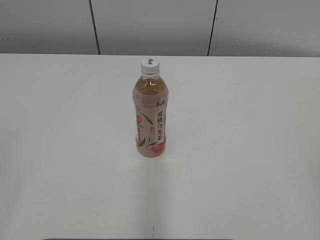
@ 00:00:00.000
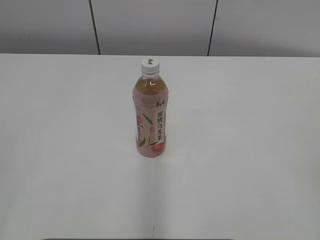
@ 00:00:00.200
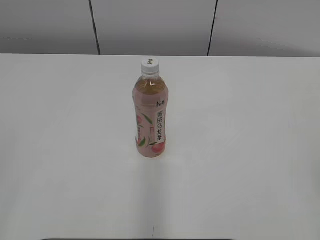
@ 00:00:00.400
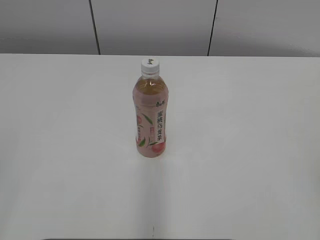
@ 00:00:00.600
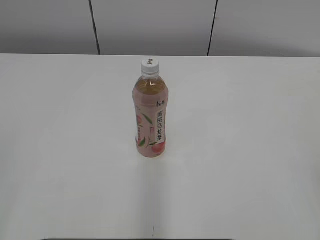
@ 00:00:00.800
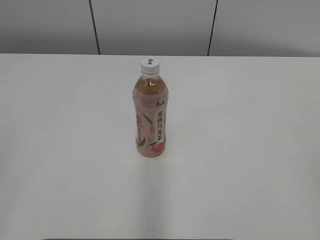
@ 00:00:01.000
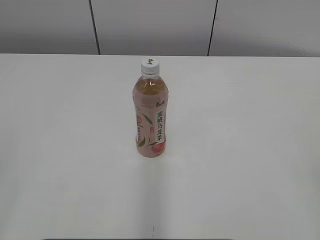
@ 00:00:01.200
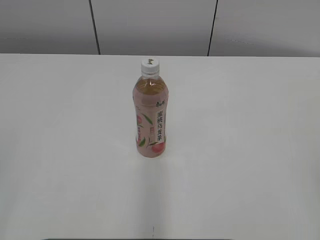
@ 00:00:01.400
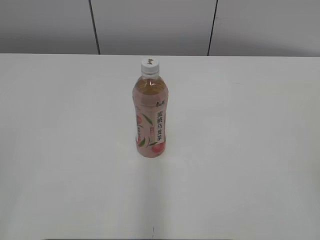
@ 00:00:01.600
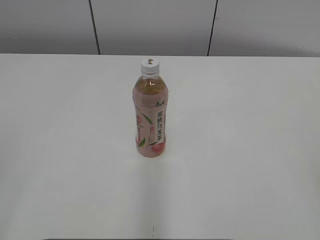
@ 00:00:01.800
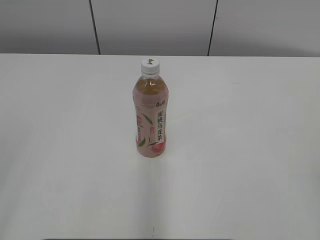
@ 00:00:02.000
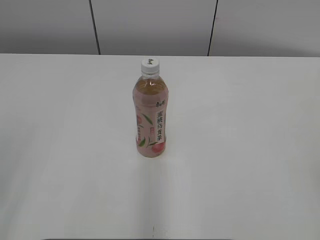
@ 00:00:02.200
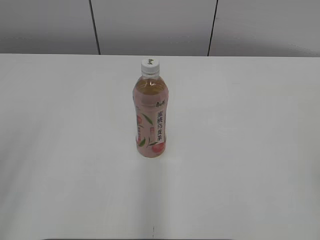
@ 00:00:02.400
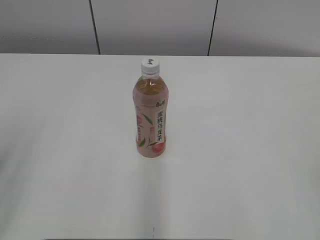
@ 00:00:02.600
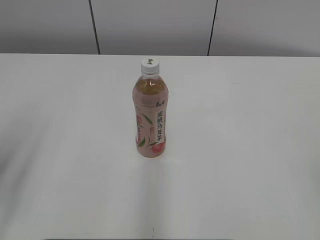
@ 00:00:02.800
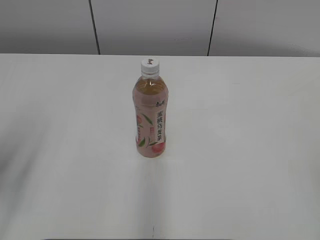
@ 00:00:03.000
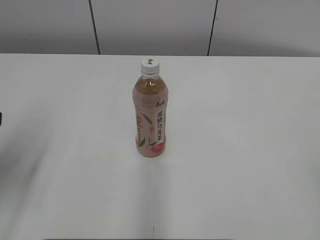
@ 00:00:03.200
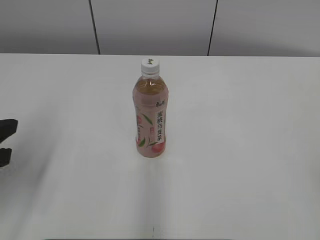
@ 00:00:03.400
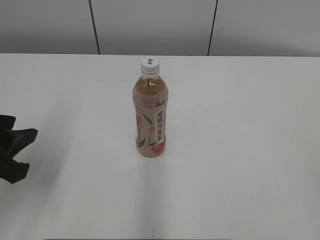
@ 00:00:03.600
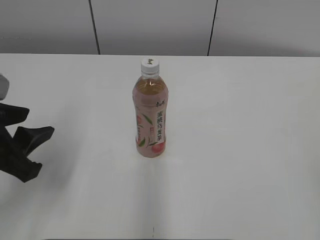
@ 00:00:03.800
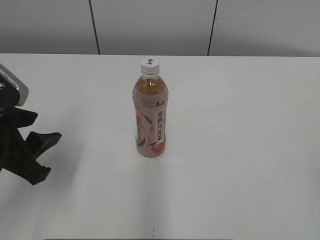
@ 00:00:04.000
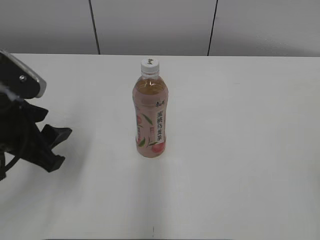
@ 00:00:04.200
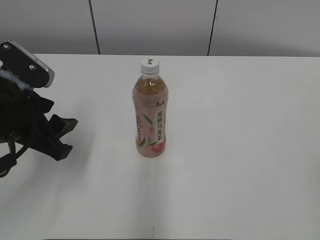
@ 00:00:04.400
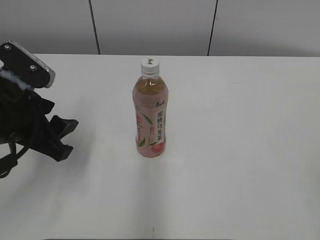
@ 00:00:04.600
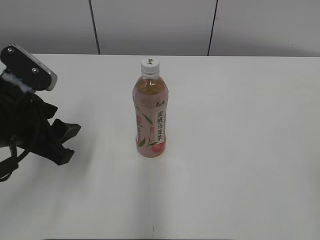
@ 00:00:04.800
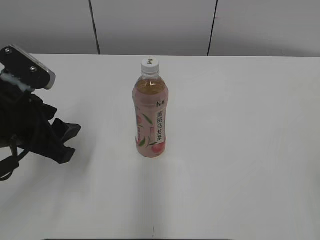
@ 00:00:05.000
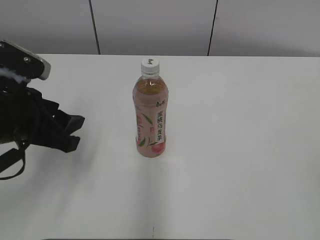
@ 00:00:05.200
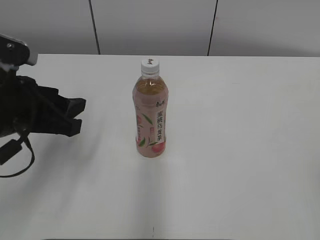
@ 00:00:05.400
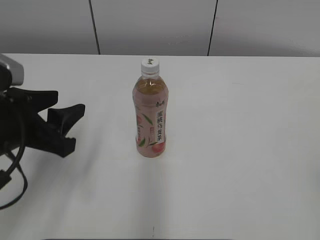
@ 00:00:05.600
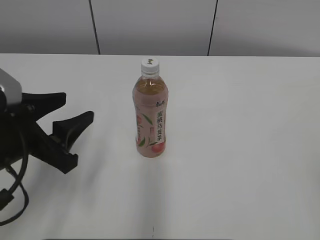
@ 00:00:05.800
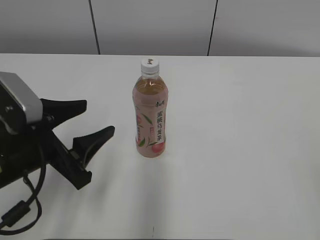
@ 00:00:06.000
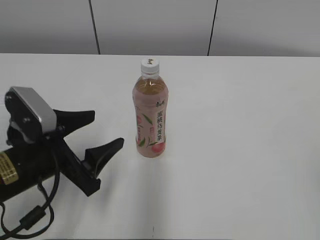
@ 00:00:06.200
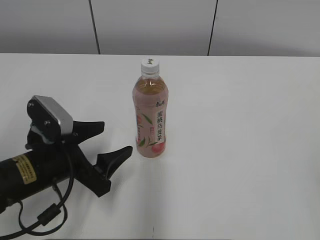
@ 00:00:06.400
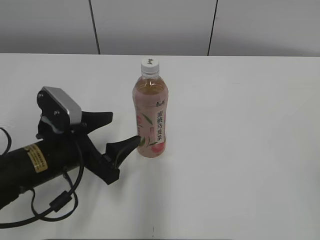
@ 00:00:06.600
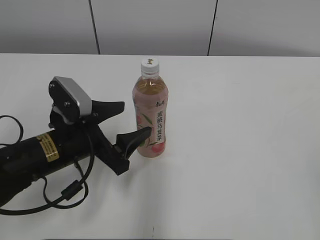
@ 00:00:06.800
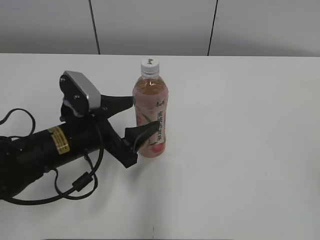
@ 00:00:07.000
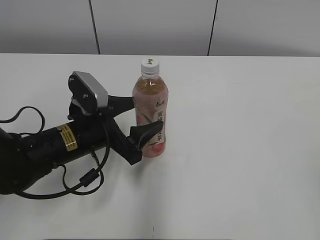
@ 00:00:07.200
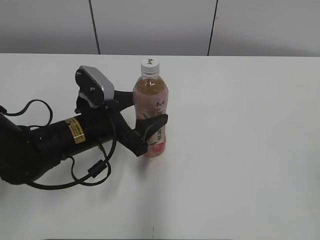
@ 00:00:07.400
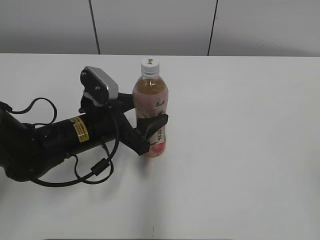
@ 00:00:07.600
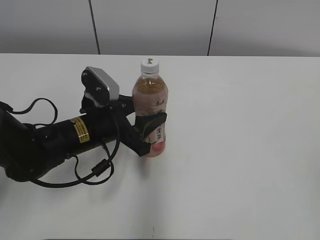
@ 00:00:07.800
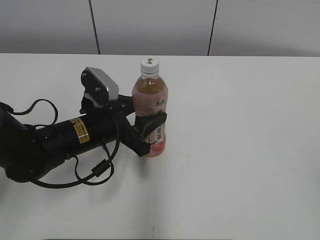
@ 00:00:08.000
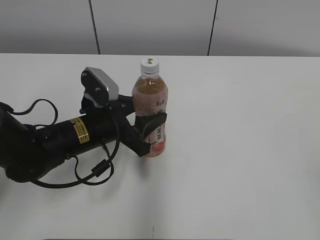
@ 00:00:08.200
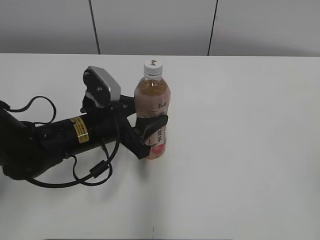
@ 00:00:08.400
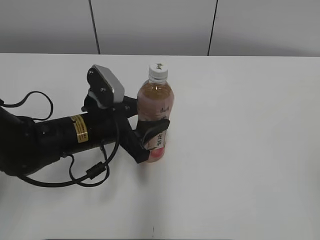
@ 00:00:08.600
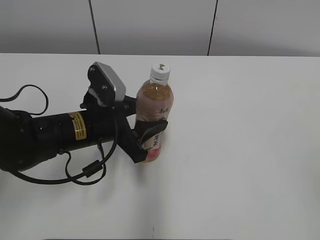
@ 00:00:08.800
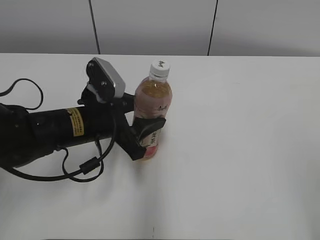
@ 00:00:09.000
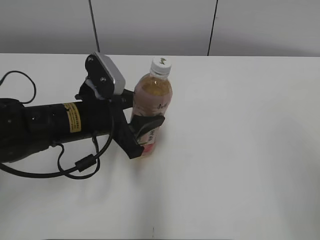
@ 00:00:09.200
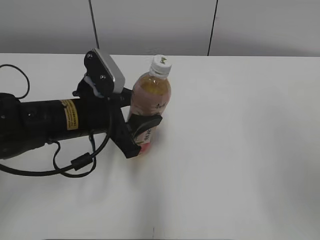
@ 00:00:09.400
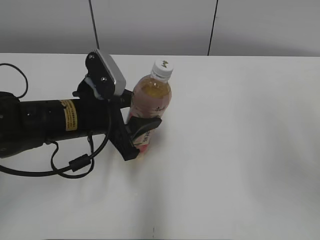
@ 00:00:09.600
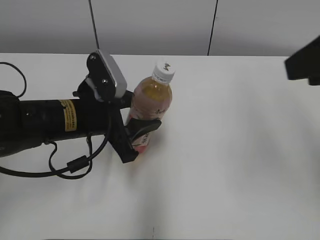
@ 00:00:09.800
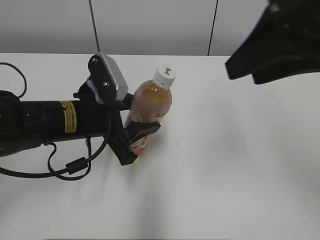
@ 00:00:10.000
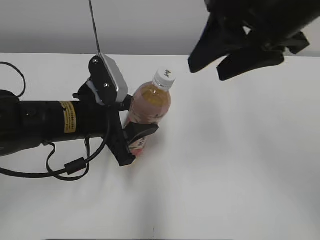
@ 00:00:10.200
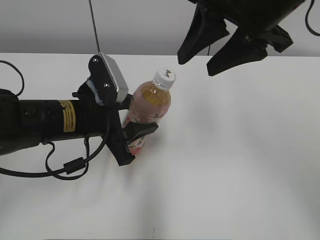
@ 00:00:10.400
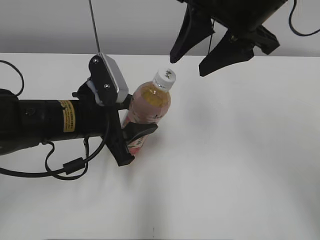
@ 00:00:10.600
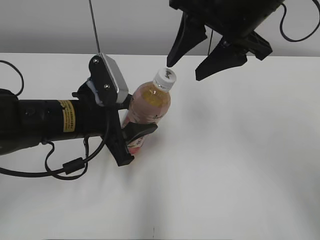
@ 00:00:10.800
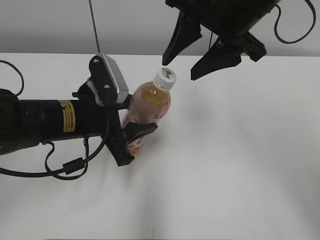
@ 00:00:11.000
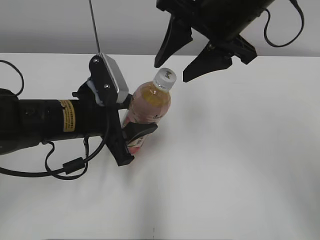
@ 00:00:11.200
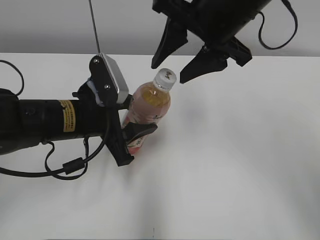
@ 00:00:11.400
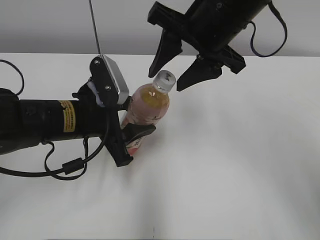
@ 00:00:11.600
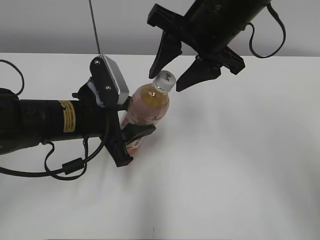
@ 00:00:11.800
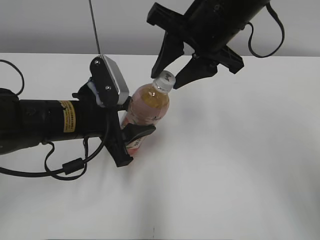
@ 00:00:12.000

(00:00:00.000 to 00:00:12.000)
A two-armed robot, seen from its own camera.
Step, 00:00:00.000 - 00:00:08.000: Grab the Peach Oolong Tea with the left hand.
00:00:01.600 - 00:00:03.000: The left gripper goes some 15 cm forward.
00:00:03.000 - 00:00:04.400: The left gripper heads to the right and forward, covering approximately 10 cm.
00:00:06.000 - 00:00:07.600: The left gripper moves forward, to the right and downward, roughly 15 cm.
00:00:07.600 - 00:00:09.000: The left gripper closes up.
00:00:09.000 - 00:00:10.400: The right gripper goes about 30 cm forward and to the left.
00:00:10.400 - 00:00:12.000: The right gripper moves about 5 cm.

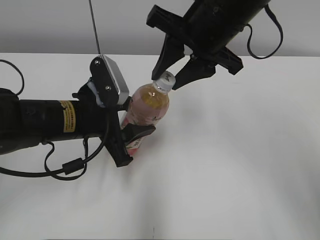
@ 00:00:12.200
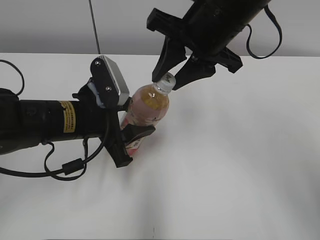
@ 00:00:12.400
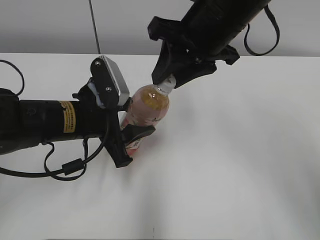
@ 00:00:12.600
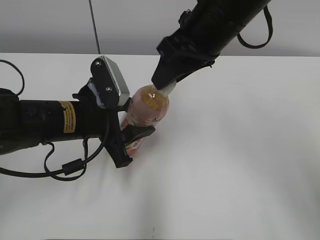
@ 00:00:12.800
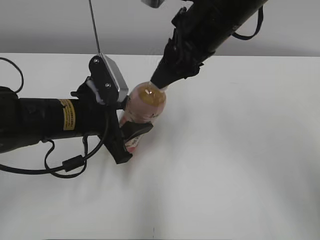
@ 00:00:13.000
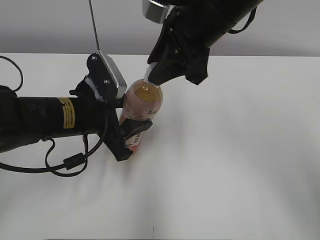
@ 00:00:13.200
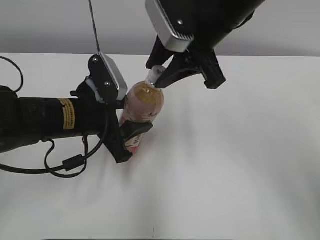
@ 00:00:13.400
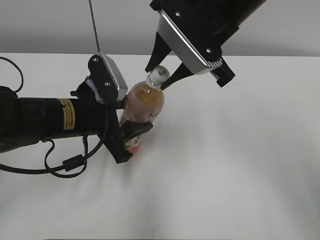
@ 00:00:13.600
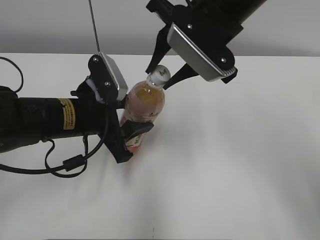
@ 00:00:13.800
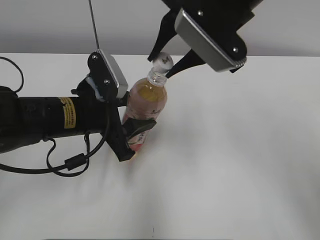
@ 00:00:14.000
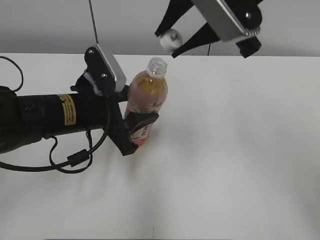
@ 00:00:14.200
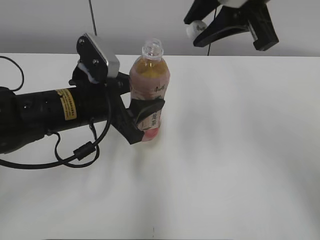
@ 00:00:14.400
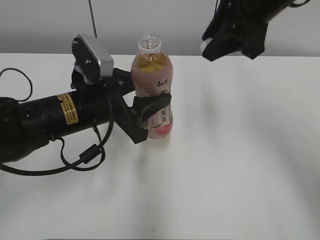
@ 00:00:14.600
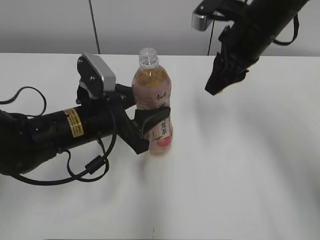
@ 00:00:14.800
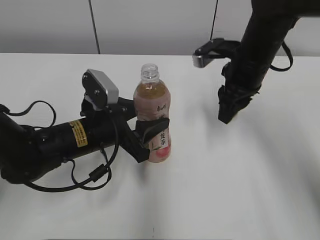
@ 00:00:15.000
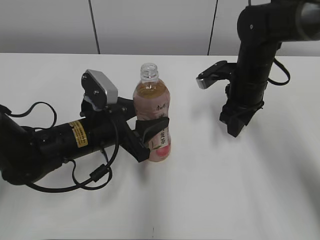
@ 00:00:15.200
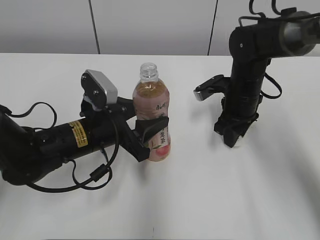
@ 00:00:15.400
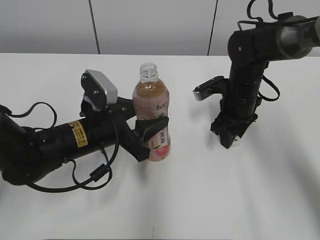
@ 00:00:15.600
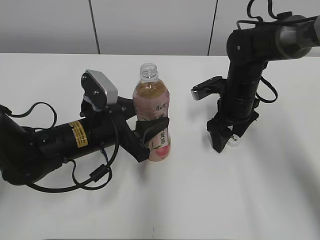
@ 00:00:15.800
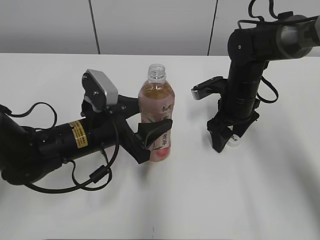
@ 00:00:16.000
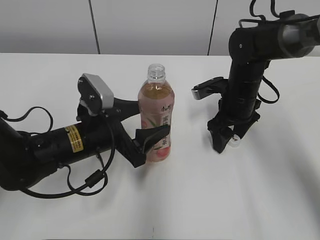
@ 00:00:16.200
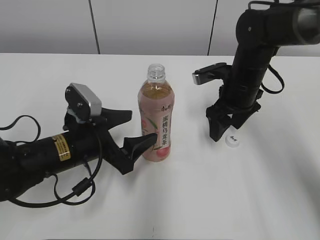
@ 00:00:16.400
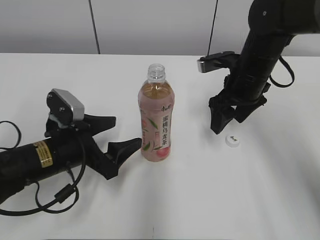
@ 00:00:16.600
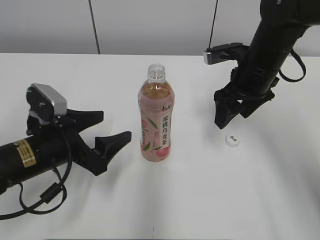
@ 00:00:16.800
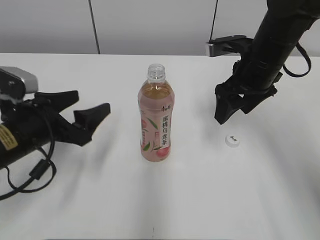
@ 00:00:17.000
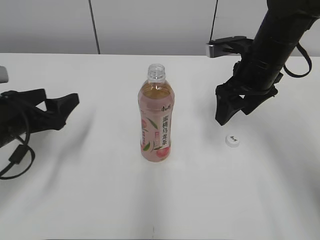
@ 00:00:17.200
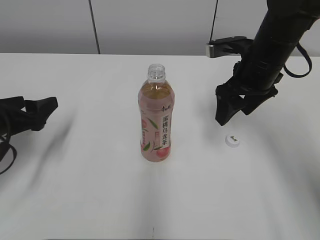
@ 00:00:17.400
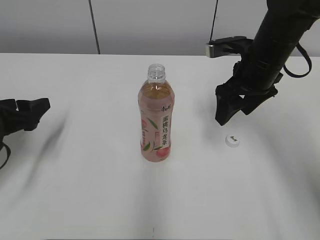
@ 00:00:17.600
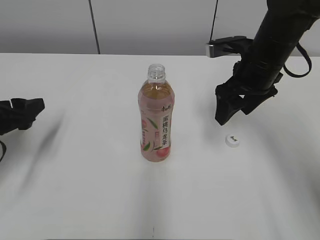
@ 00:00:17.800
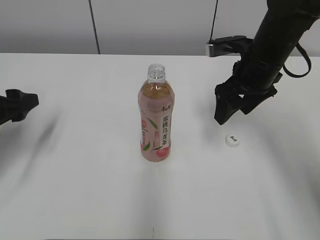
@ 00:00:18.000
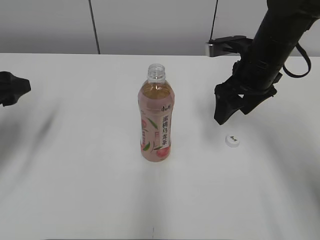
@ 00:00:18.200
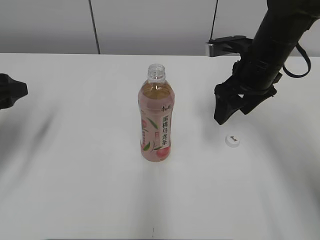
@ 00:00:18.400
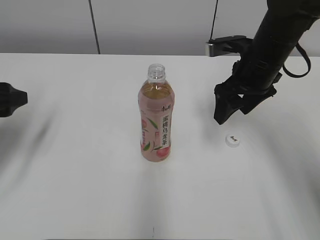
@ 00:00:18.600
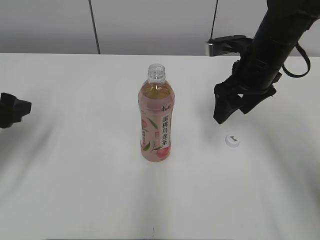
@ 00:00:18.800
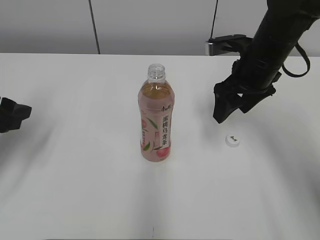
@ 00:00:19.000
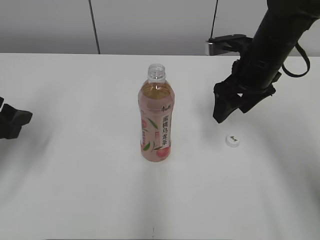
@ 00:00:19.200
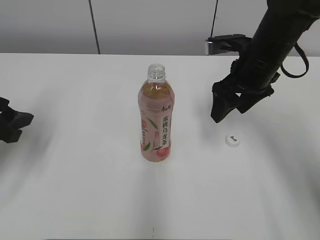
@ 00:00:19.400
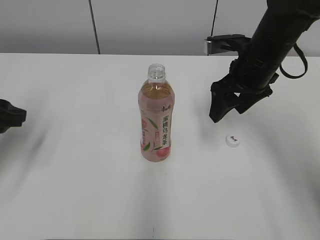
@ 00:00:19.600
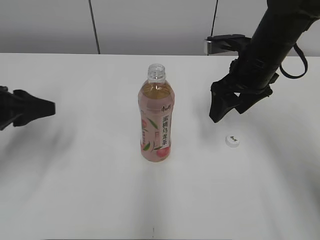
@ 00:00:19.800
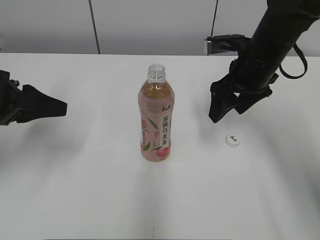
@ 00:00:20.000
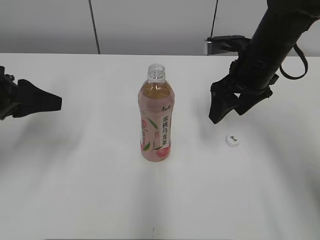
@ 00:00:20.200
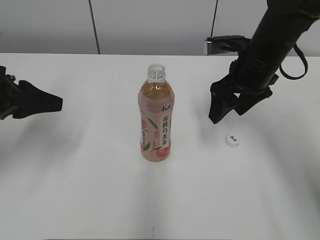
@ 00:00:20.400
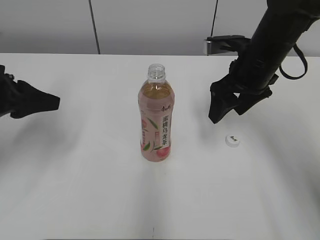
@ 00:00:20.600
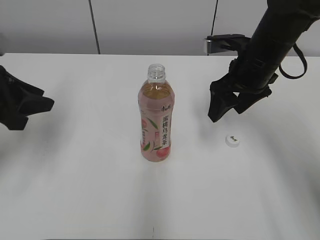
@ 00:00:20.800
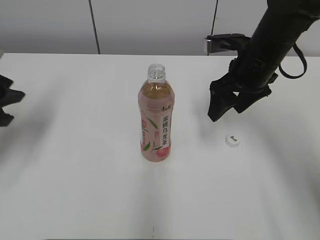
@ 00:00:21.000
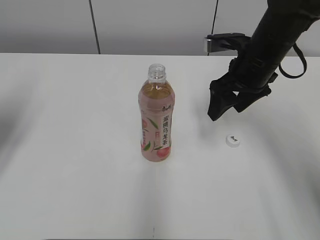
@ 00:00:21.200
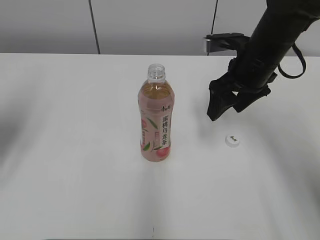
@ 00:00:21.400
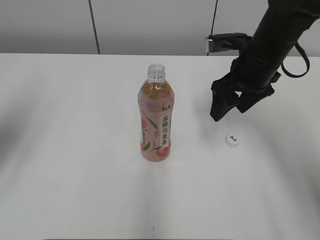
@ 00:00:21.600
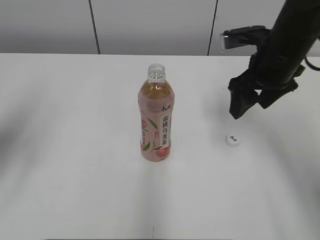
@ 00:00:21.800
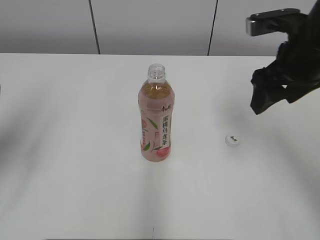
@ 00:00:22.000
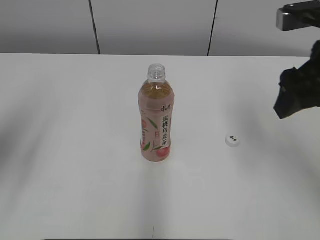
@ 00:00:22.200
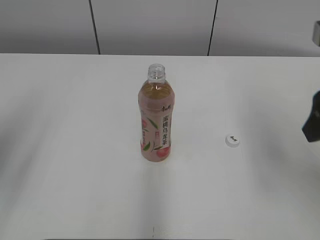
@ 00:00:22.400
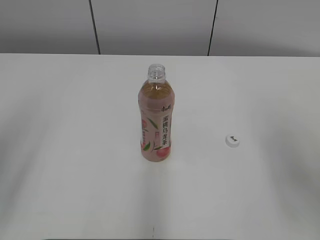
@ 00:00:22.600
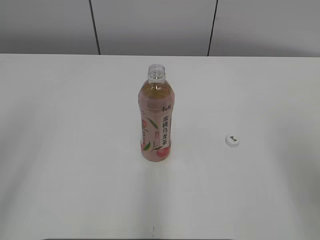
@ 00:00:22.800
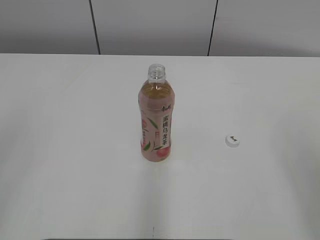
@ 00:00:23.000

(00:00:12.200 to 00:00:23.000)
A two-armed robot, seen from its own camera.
Step, 00:00:12.200 - 00:00:14.400: Secure the Peach Oolong Tea with the left hand.
Step, 00:00:14.600 - 00:00:16.000: Place the bottle cap on the right.
Step, 00:00:16.200 - 00:00:17.000: Place the Peach Oolong Tea with the left hand.
00:00:13.800 - 00:00:15.200: The right gripper goes about 20 cm downward, to the right and forward.
00:00:15.200 - 00:00:16.800: The left gripper goes about 5 cm to the left, and opens, while the right gripper opens.
00:00:16.800 - 00:00:18.400: The left gripper is displaced to the left and upward by approximately 15 cm.
00:00:18.400 - 00:00:20.000: The left gripper closes.
00:00:20.000 - 00:00:21.400: The left gripper heads to the left, covering approximately 5 cm.
00:00:21.400 - 00:00:23.000: The right gripper moves backward and to the right, about 30 cm. The left gripper travels backward by some 20 cm.
